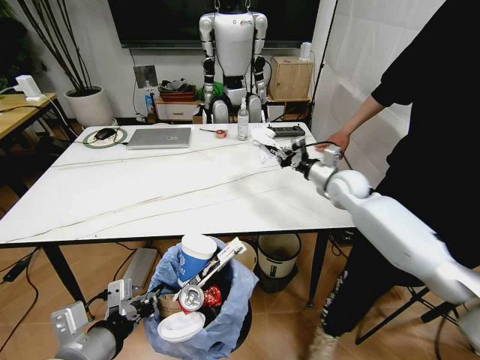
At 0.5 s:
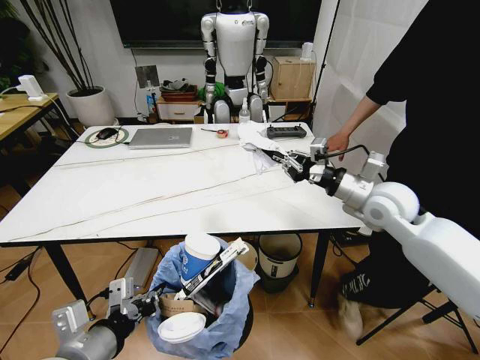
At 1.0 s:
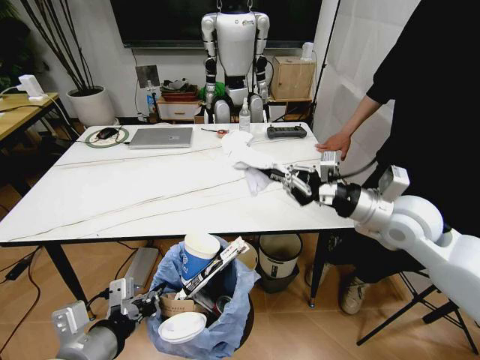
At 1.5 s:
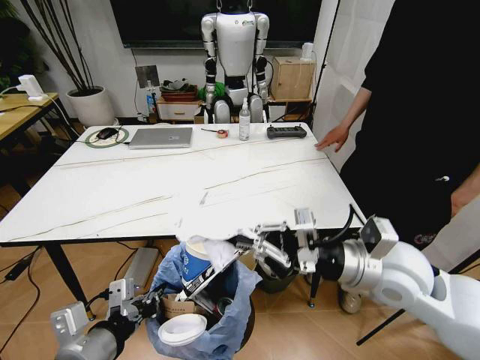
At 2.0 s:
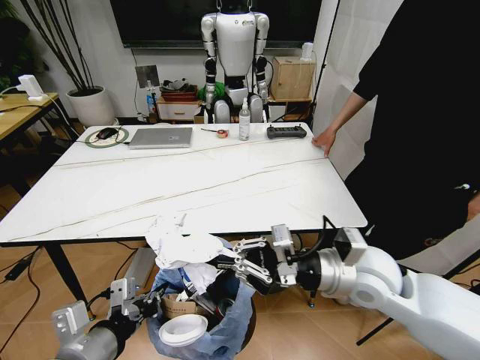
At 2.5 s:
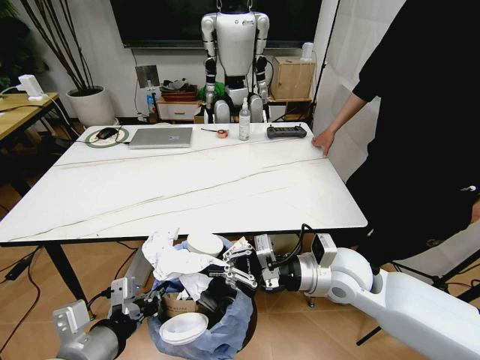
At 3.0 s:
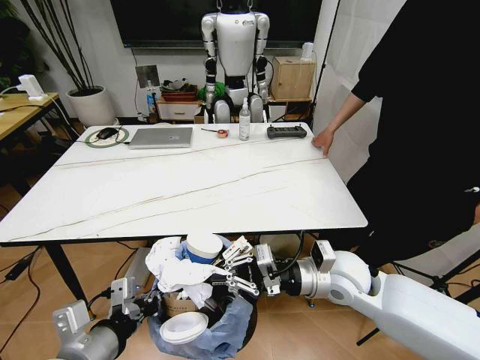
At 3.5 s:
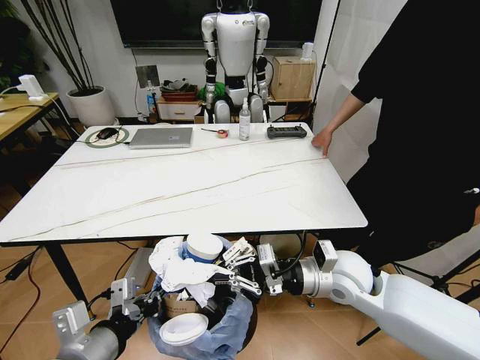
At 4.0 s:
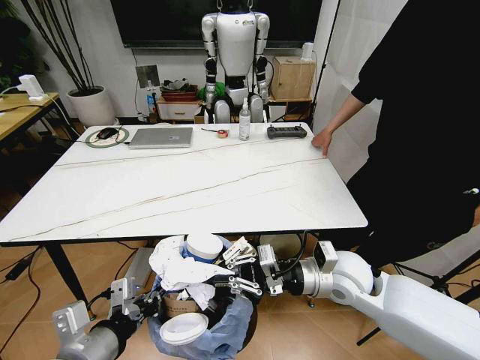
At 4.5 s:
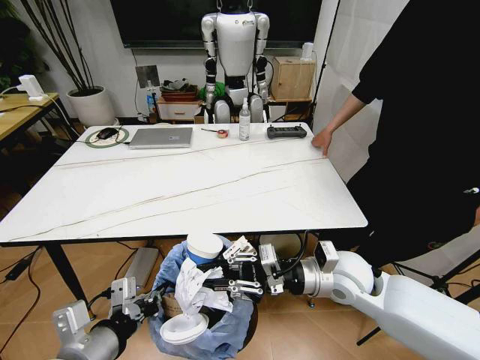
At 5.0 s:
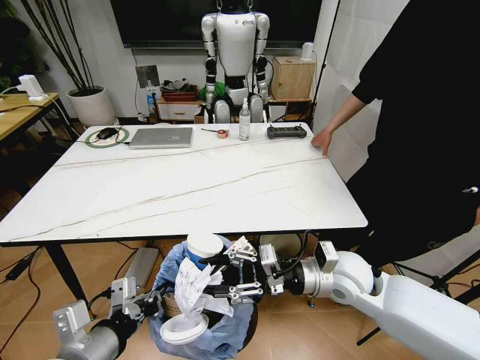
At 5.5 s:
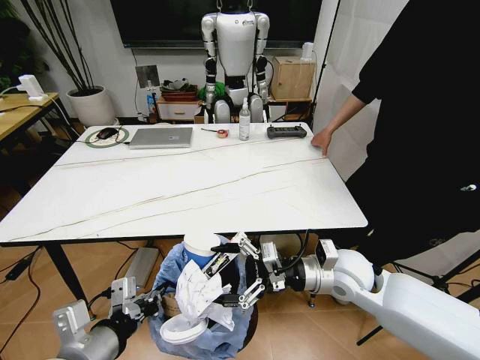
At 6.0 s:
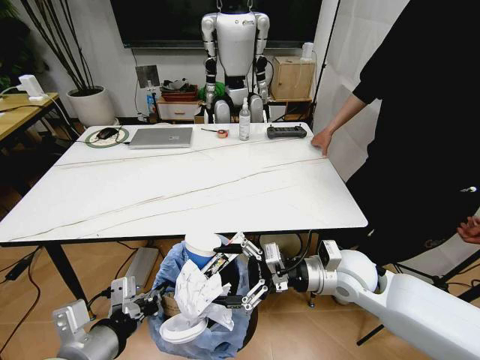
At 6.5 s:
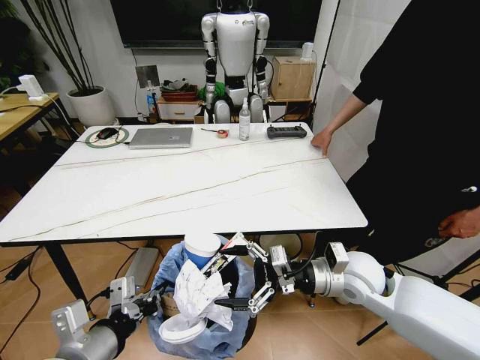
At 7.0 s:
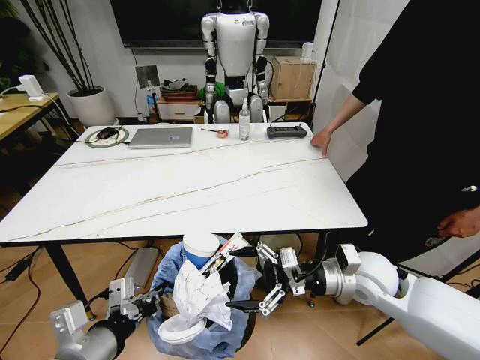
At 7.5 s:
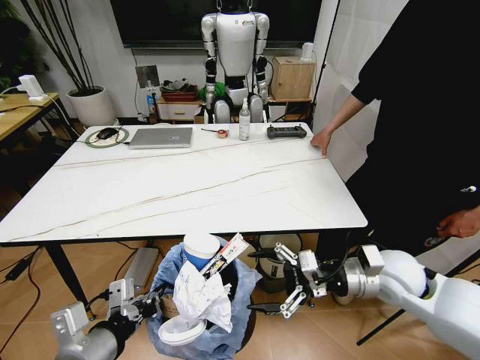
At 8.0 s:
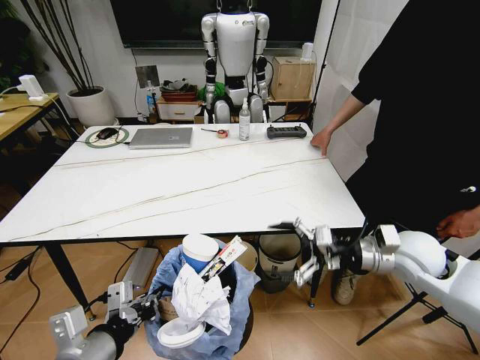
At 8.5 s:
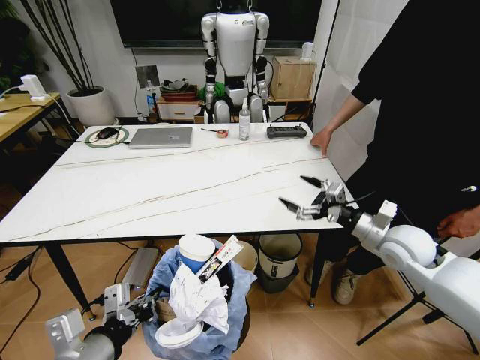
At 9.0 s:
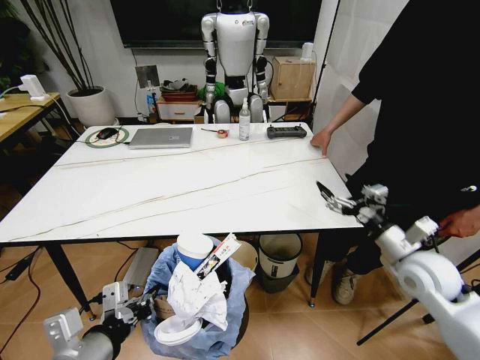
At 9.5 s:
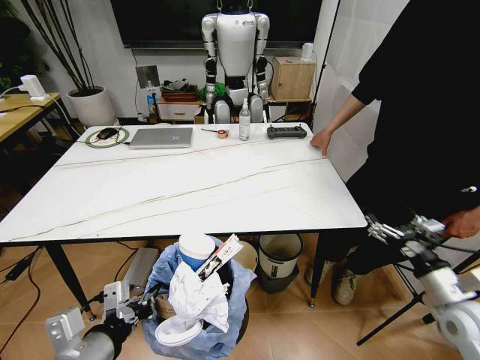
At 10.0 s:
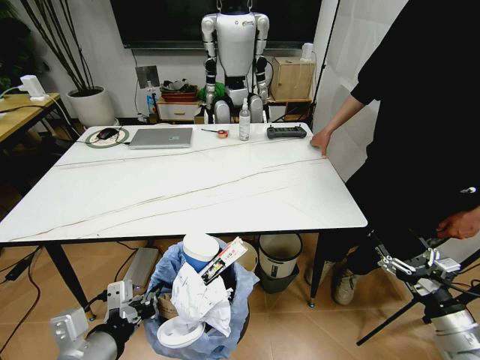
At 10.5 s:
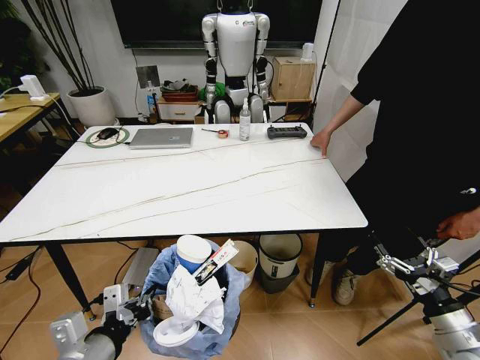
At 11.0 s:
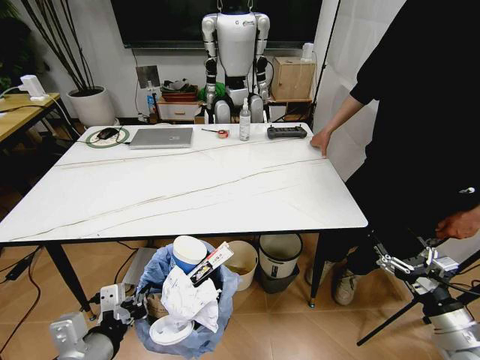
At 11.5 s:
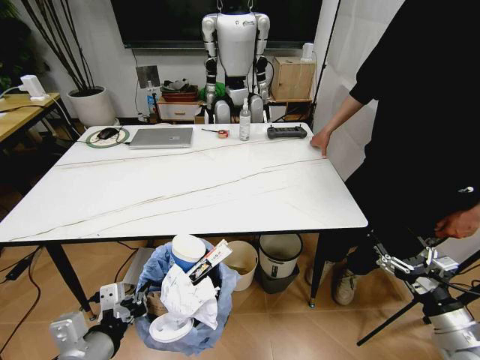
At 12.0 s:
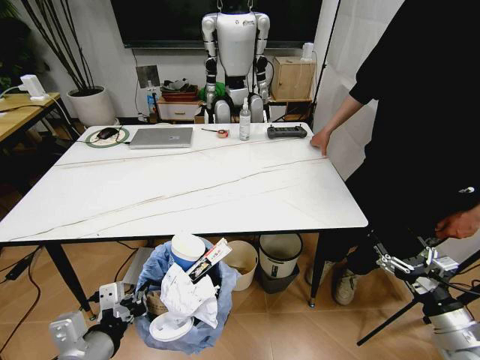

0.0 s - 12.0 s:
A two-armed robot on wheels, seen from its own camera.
Task of the whole recording: Pick up the trash bin and place the trash from the table into it.
0.0 s - 2.0 s: The right gripper moves backward, about 25 cm.
2.0 s - 4.0 s: The right gripper moves downward, roughly 5 cm.
4.0 s - 6.0 s: The right gripper opens up.
6.0 s - 8.0 s: The right gripper moves to the right, some 10 cm.
8.0 s - 10.0 s: The right gripper shifts approximately 25 cm backward, downward and to the right.
10.0 s - 12.0 s: The grippers move only a little.

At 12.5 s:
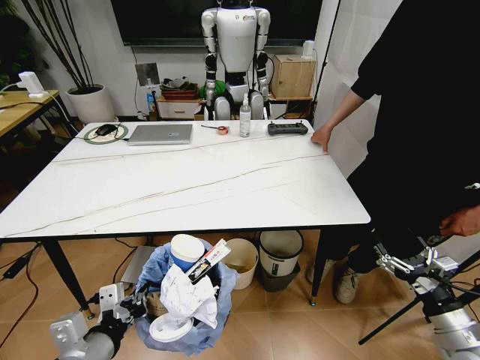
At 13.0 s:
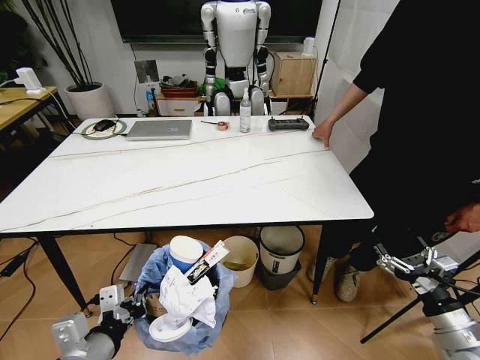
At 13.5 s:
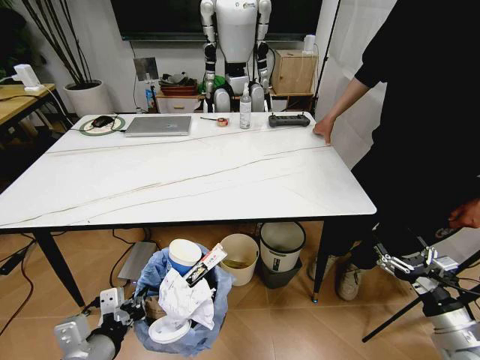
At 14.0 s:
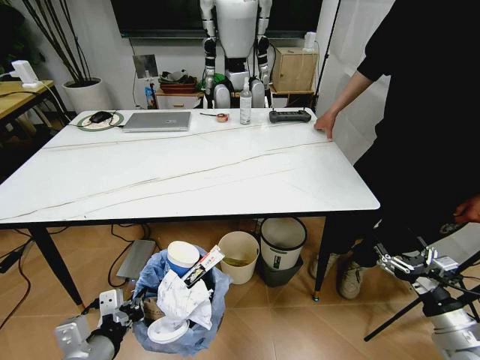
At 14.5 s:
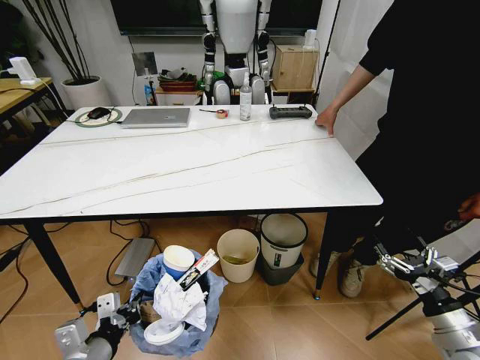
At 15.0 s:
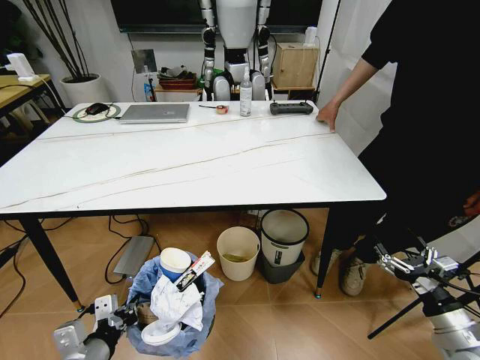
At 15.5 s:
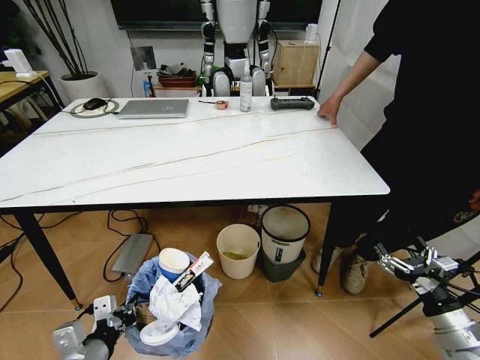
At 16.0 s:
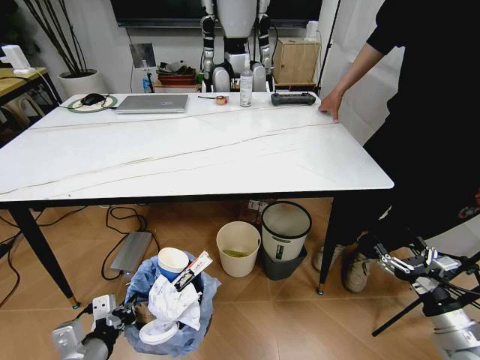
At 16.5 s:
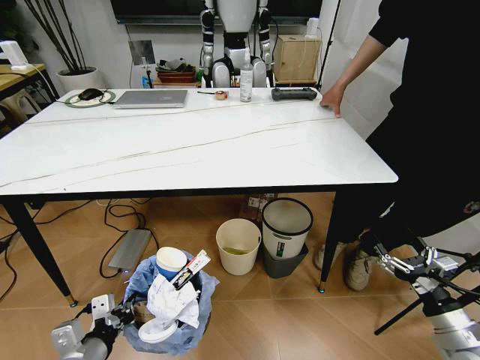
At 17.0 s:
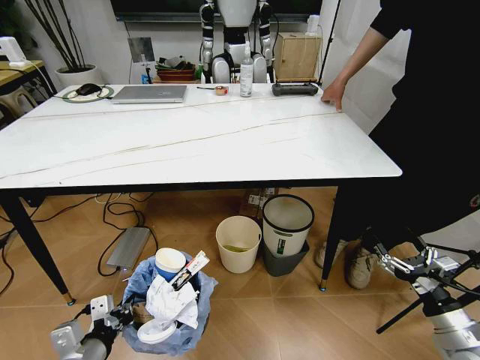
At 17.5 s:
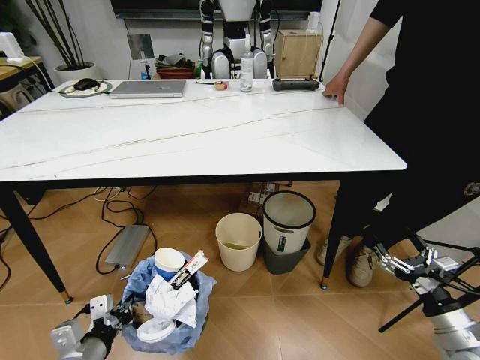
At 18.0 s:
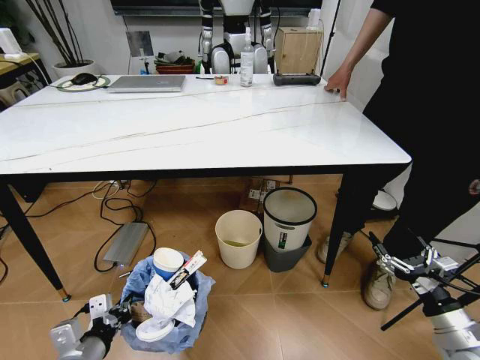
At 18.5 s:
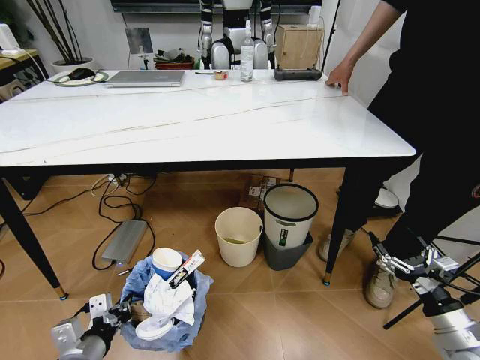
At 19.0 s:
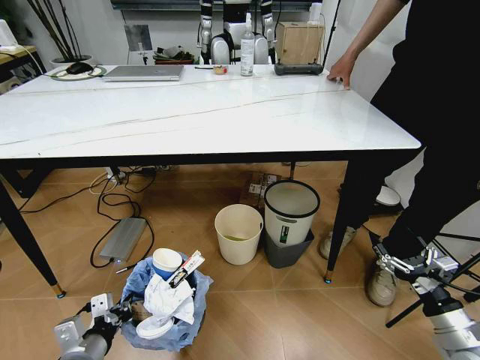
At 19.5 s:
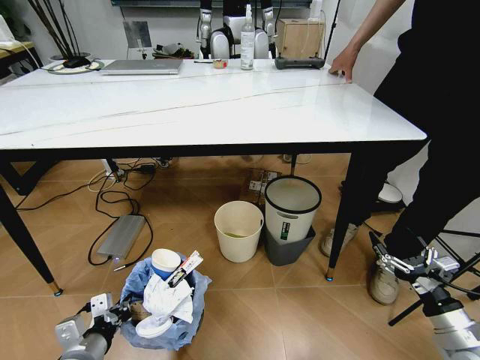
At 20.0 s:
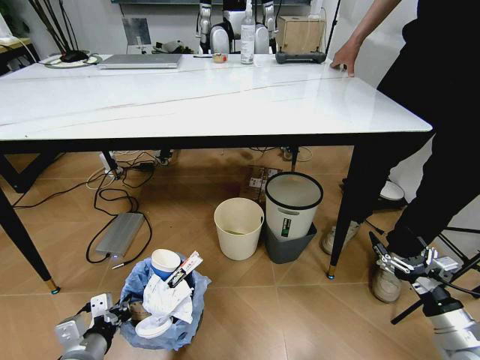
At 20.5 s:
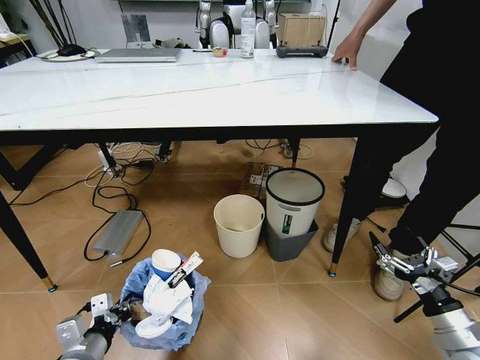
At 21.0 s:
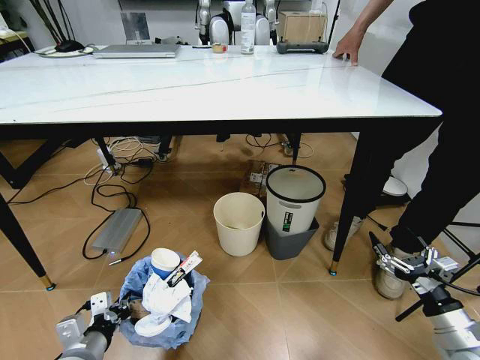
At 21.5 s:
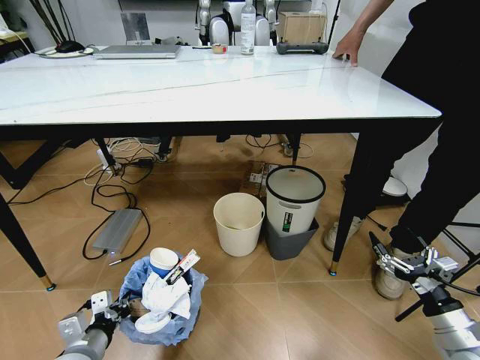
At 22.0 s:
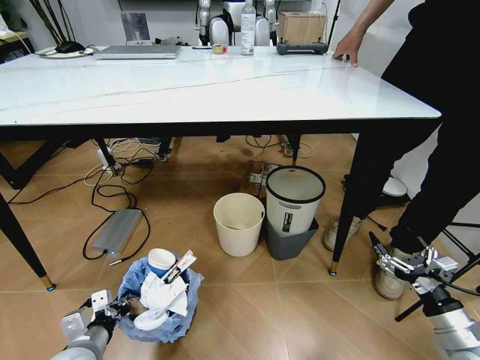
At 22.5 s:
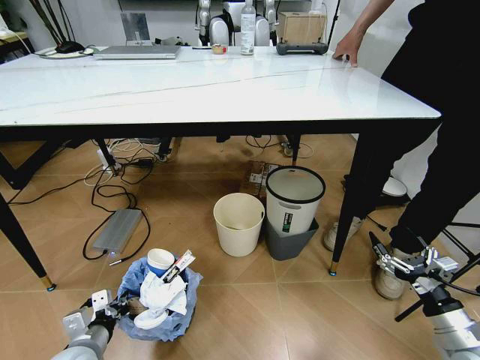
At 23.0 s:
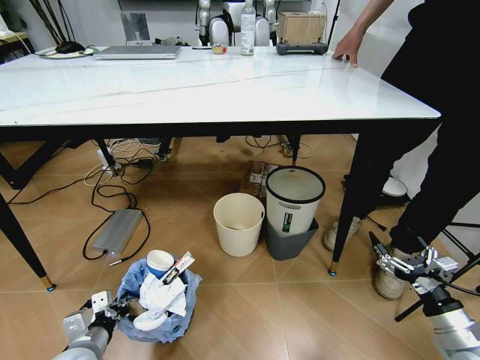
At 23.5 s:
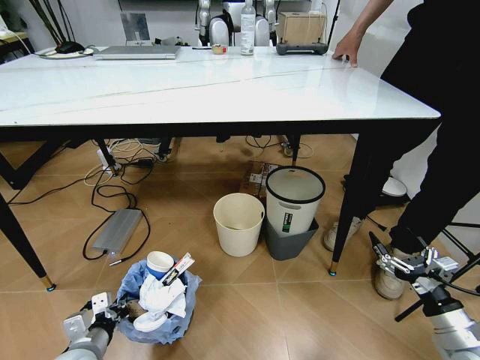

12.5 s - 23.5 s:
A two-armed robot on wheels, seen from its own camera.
Task of the whole recording: Pick up the trash bin and place the trash from the table into it.
12.5 s - 14.5 s: The left gripper changes place by about 5 cm.
21.5 s - 23.5 s: The grippers stay close to where they were, moving slightly.

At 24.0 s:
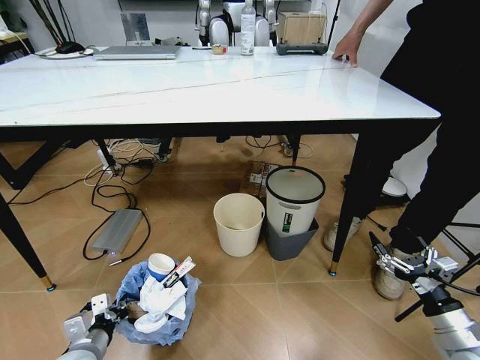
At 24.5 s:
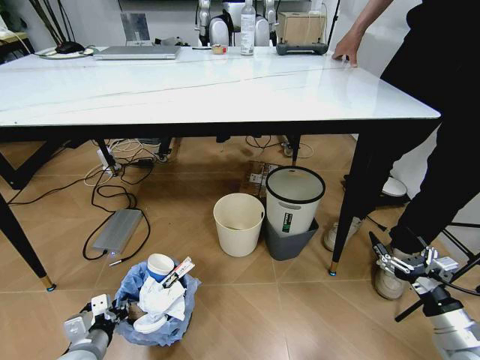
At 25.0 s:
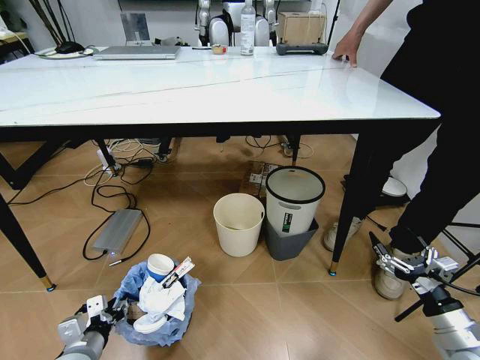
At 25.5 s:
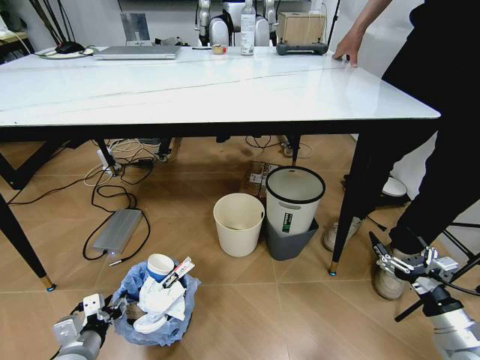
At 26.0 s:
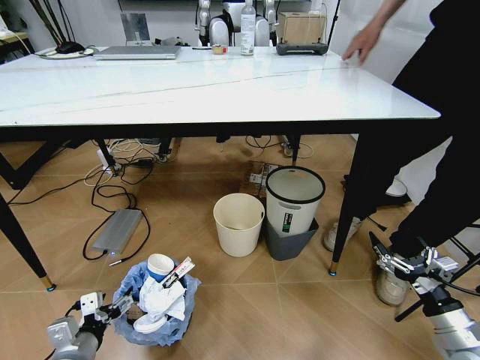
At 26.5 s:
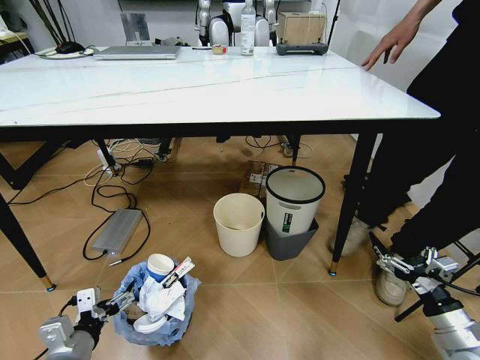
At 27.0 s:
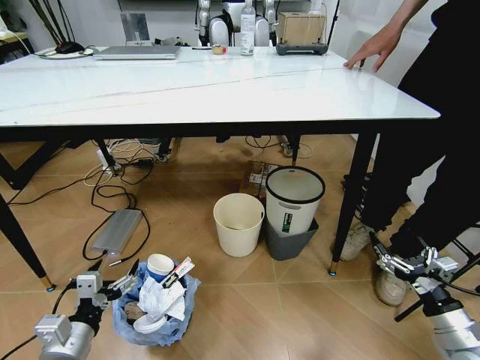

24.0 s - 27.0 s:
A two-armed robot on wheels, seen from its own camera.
Task of the whole recording: Pick up the trash bin and place the trash from the table into it.
24.0 s - 25.5 s: The left gripper opens.
25.5 s - 27.0 s: The left gripper goes roughly 10 cm upward, and opens up.
